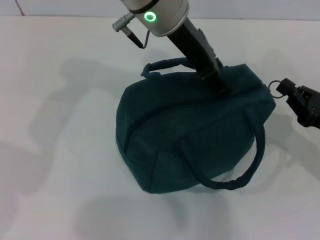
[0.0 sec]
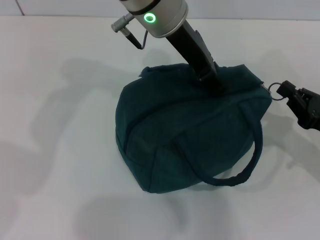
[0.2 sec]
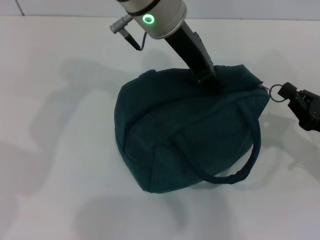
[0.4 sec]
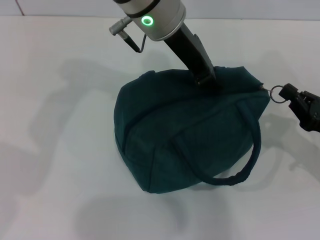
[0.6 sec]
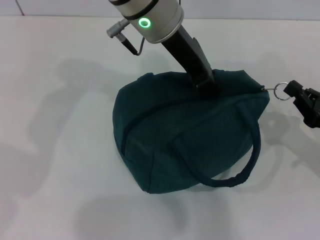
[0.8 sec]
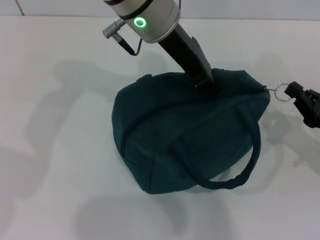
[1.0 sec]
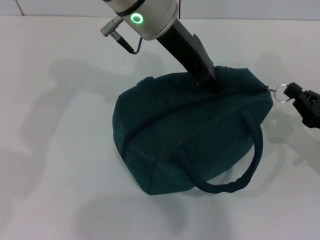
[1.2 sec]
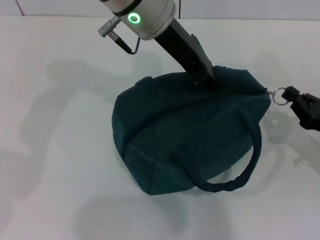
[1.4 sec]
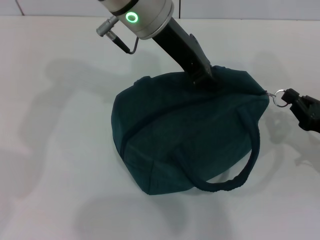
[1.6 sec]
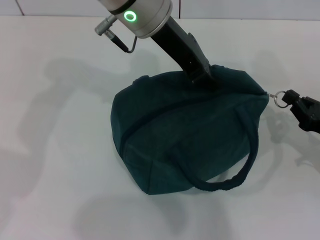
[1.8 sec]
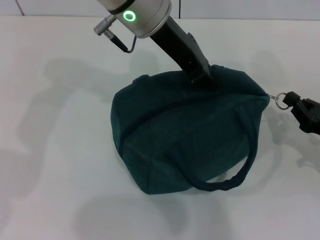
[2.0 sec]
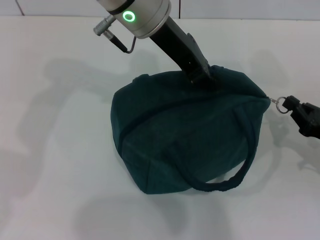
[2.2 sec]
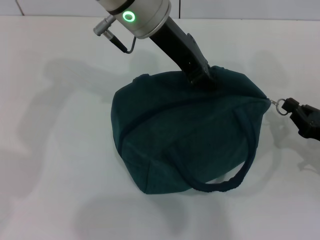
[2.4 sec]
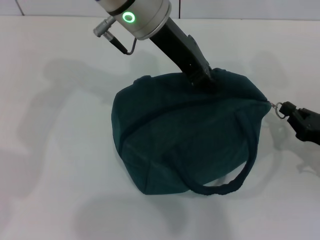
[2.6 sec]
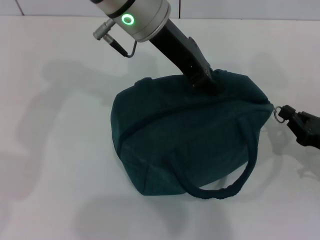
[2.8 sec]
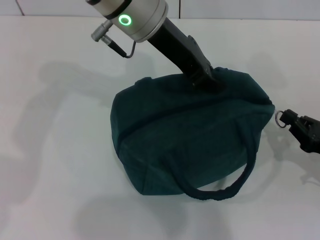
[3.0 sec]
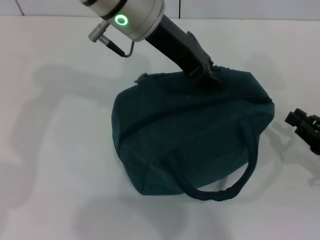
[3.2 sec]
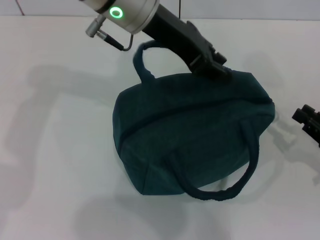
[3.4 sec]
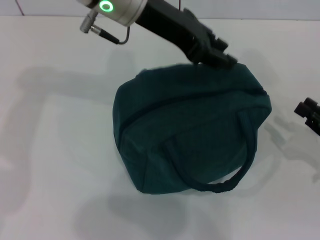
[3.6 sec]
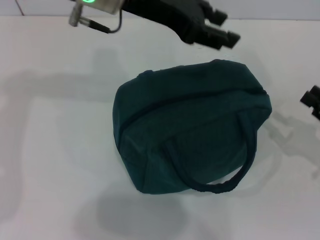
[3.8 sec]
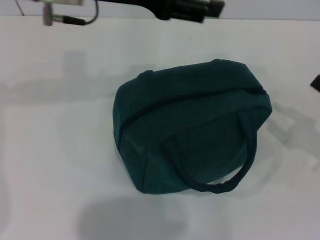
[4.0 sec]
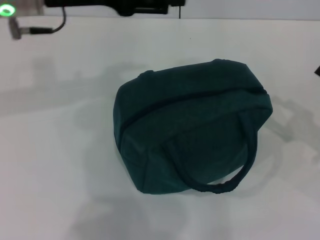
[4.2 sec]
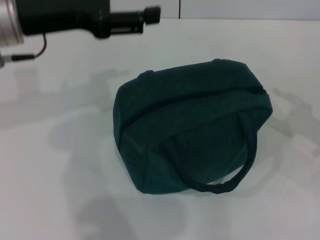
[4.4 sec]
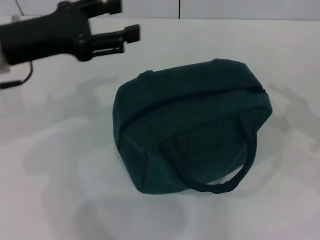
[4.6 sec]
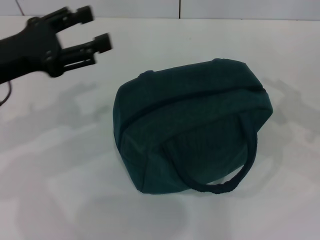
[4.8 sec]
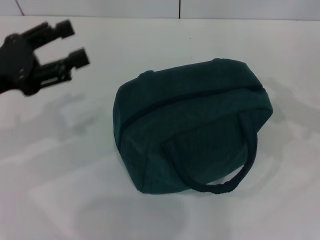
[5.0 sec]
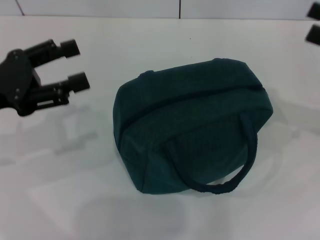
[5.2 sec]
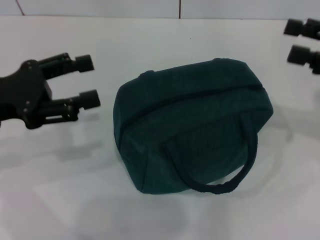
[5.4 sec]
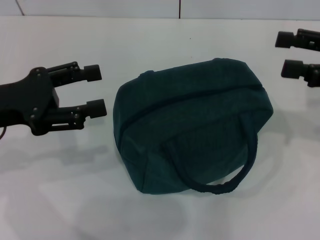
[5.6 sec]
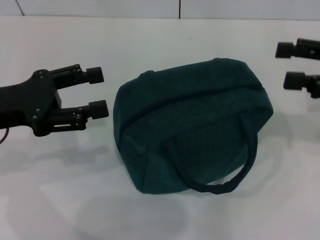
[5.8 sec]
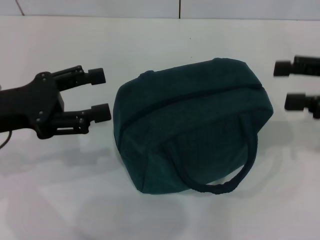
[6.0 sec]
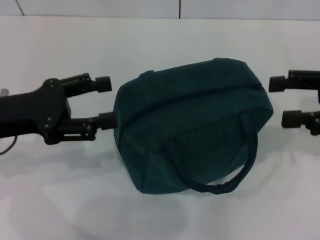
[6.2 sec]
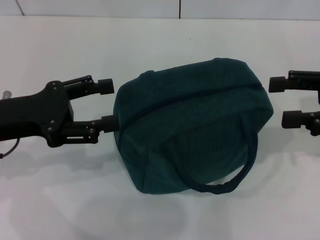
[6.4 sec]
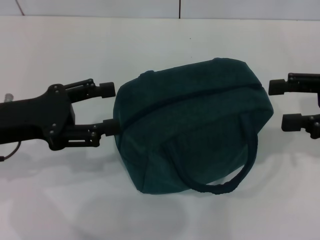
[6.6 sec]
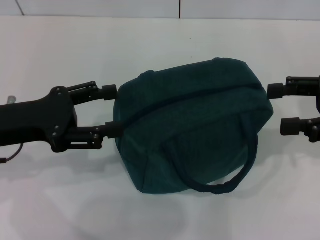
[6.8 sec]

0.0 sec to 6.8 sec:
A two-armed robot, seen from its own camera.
Step, 0.0 sec to 3.0 sec: Zip up the lunch bag with your right hand.
Step, 3.2 sec to 3.4 sec: Hold the lunch bag with your left hand.
0.0 sec to 1.4 sec: The left gripper closes.
1.4 sec to 2.8 sec: The grippers make only small movements.
2.8 sec to 4.0 sec: The right gripper is displaced upward by approximately 5 cm, and opens up; the left gripper heads to the left, covering about 10 cm, and opens up.
4.0 sec to 5.4 sec: The right gripper shifts roughly 15 cm upward and forward, and opens up. The left gripper goes approximately 20 cm to the left, backward and downward.
5.4 sec to 6.8 sec: The grippers move only a little.
